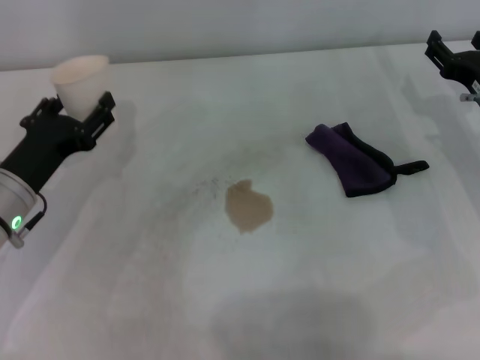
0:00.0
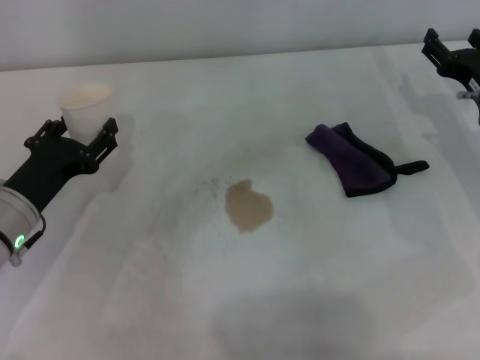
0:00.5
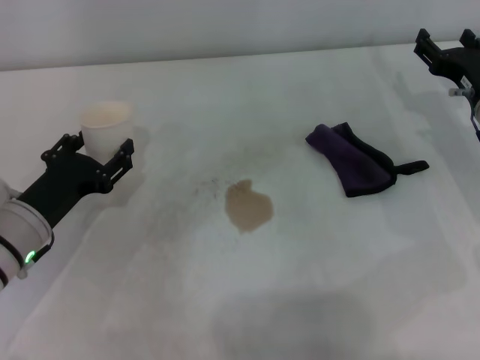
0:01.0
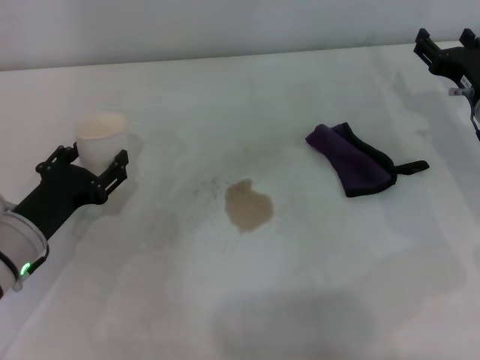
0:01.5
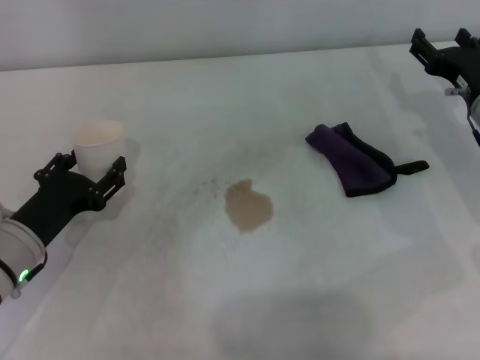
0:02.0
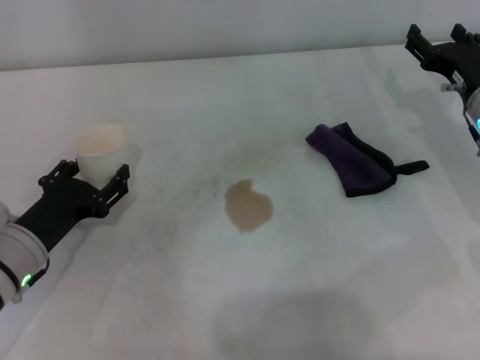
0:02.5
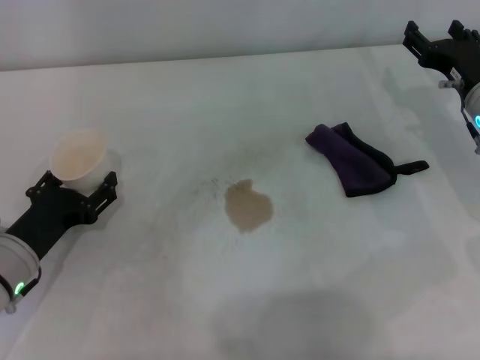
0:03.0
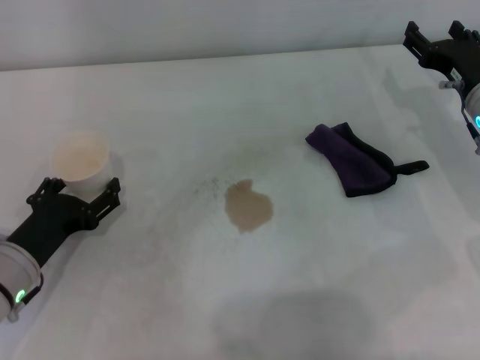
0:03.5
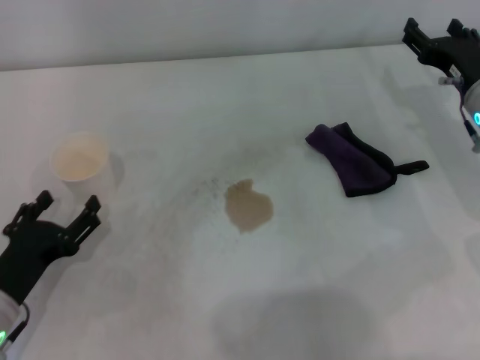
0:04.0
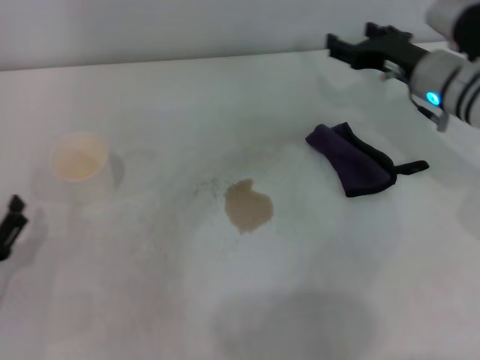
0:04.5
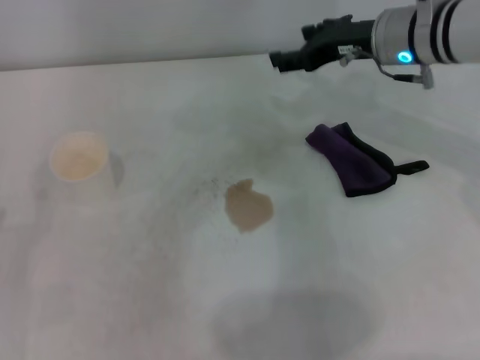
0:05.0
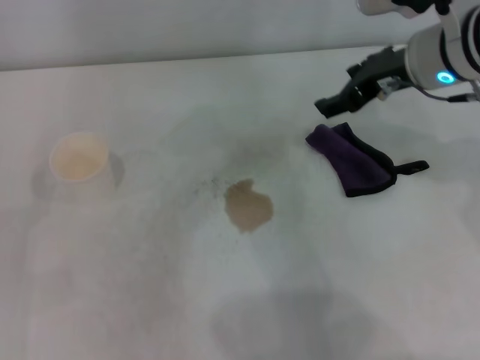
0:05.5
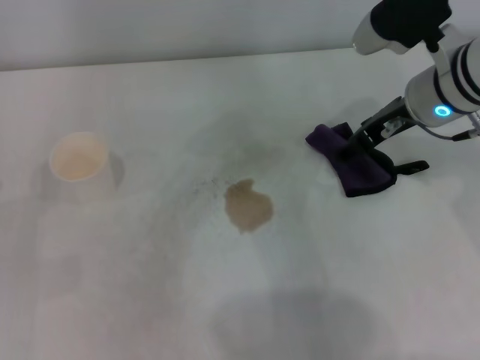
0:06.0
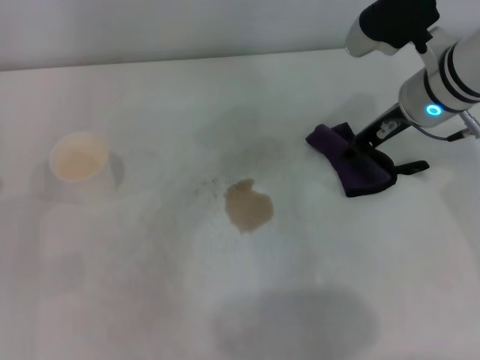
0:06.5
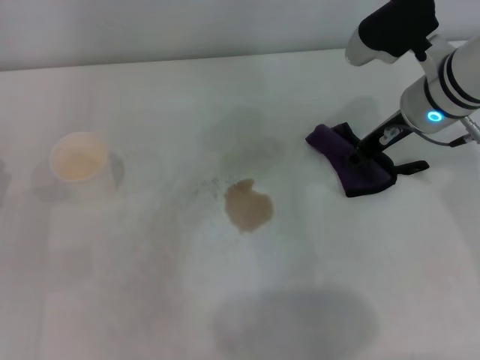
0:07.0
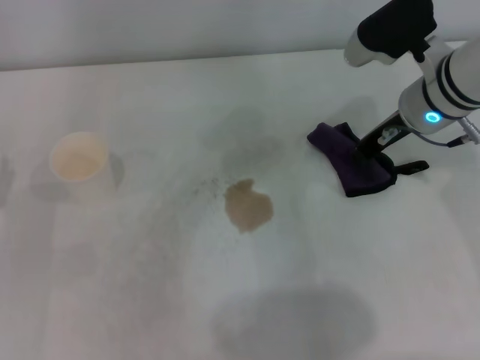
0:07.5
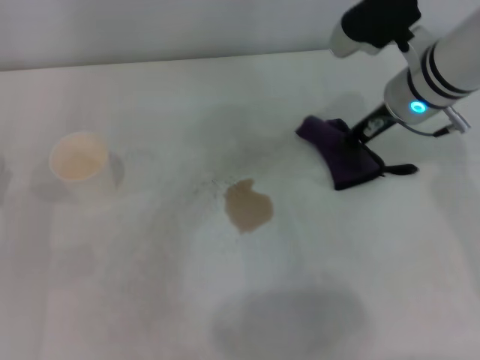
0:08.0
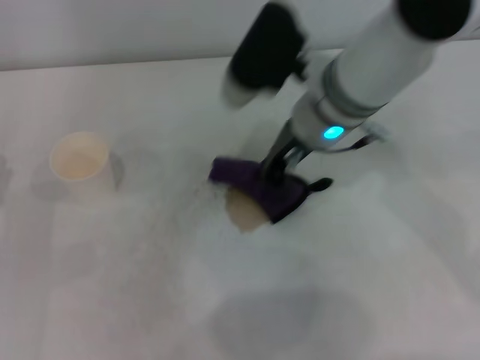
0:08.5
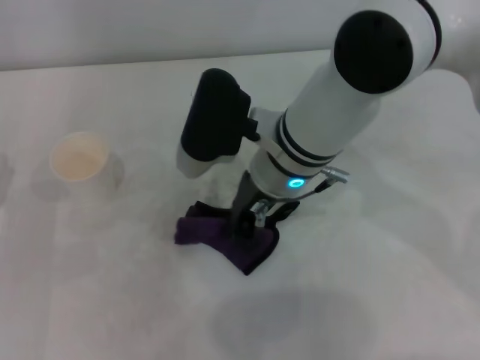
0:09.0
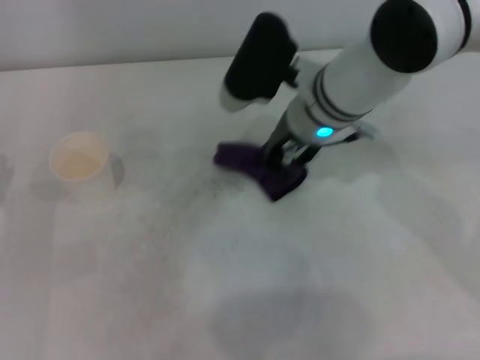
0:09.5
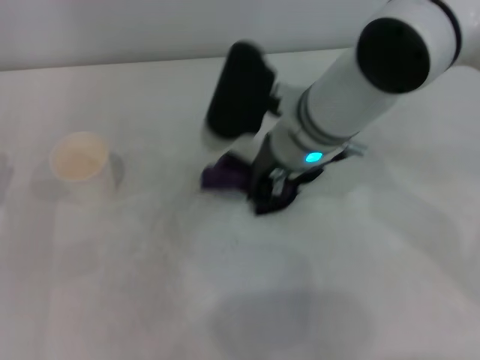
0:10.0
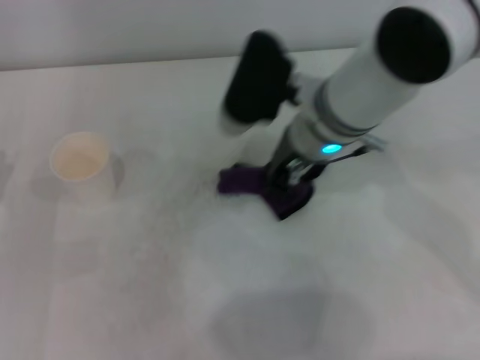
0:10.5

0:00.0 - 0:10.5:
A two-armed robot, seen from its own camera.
Step, 0:00.0 - 0:03.0: Stand the paper cup upright with the left gripper.
Step, 0:03.5 - 0:07.5: Grasp the rag with the right gripper.
Step, 0:08.0 - 0:10.0: Wipe the stains off the table with the right gripper.
0:00.0 - 0:02.0: The grippers make only small movements.
0:02.0 - 0:04.0: The left gripper heads backward, covering roughly 5 cm, and opens up.
0:04.0 - 0:06.5: The right gripper shifts roughly 10 cm to the left and upward. Meanwhile the left gripper is displaced to the left by approximately 5 cm.
0:06.5 - 0:08.5: The right gripper heads to the left, covering approximately 10 cm, and closes its fingers.
0:08.5 - 0:10.5: The grippers make only small movements.

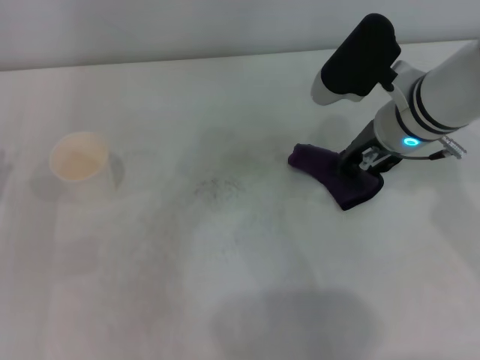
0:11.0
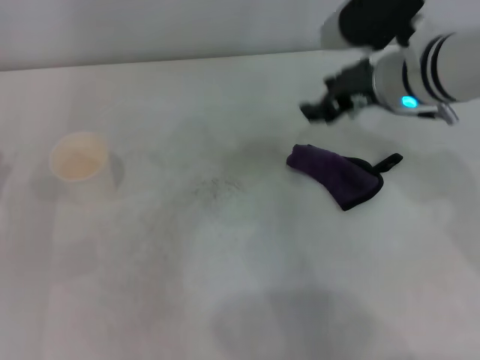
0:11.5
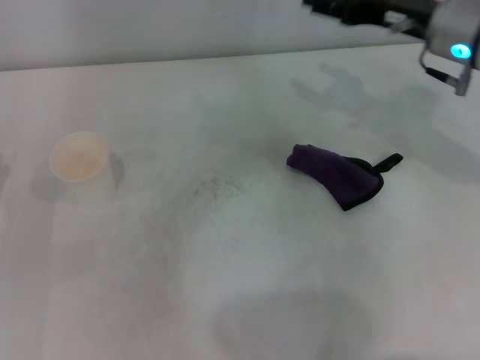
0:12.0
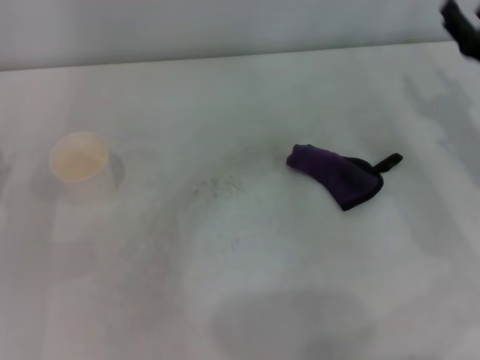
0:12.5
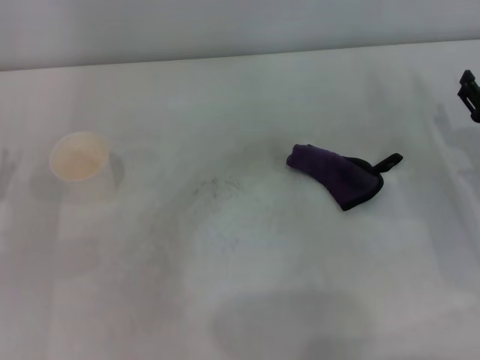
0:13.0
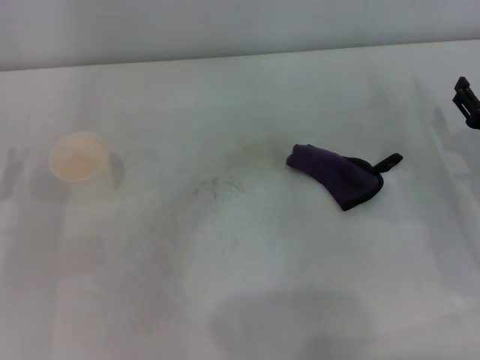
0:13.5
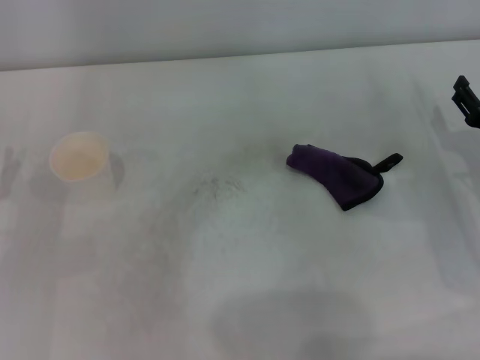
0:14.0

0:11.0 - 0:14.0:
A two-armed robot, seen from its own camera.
0:11.0 - 0:12.5: The right gripper shifts roughly 15 cm to the right, and opens.
0:12.5 - 0:14.0: The right gripper shifts by some 5 cm.
